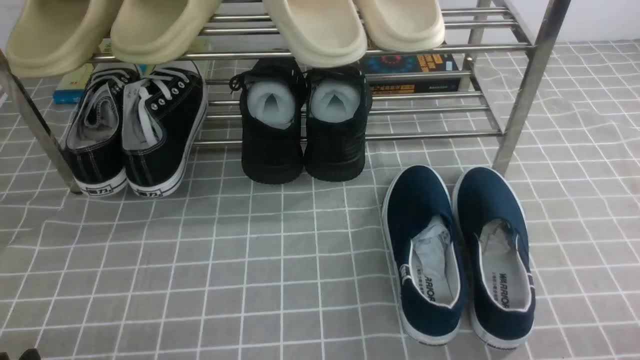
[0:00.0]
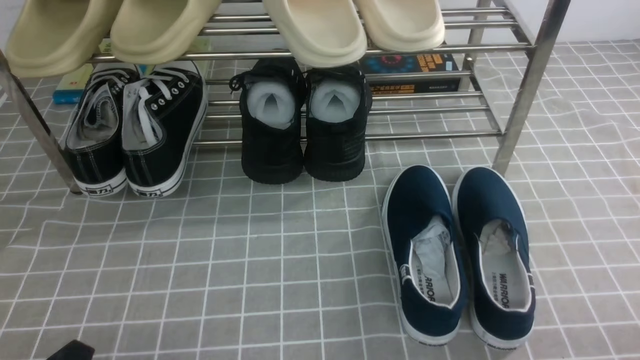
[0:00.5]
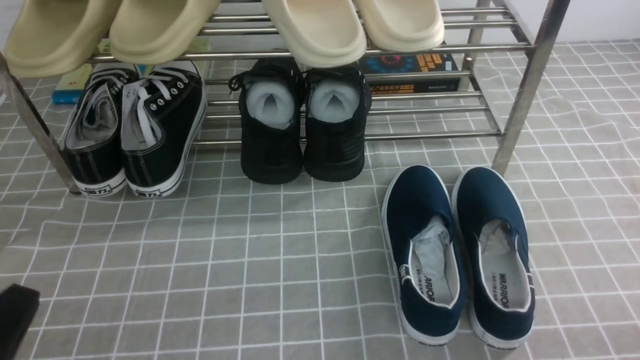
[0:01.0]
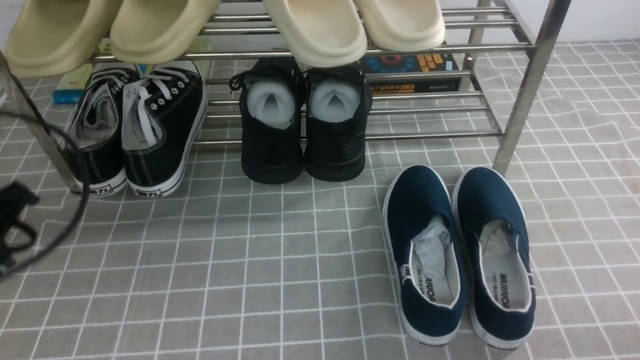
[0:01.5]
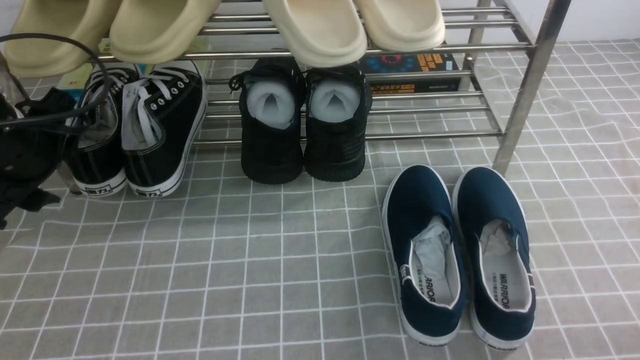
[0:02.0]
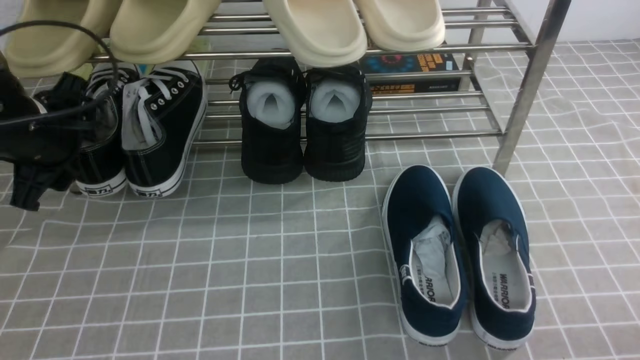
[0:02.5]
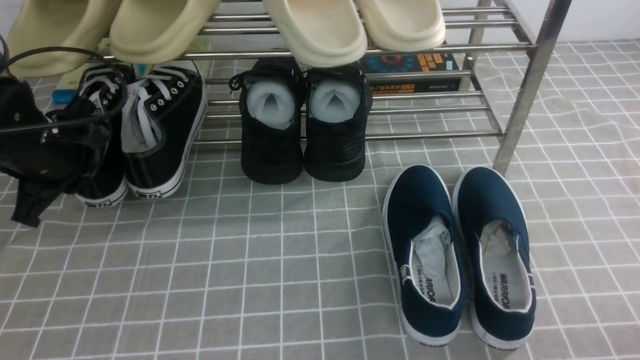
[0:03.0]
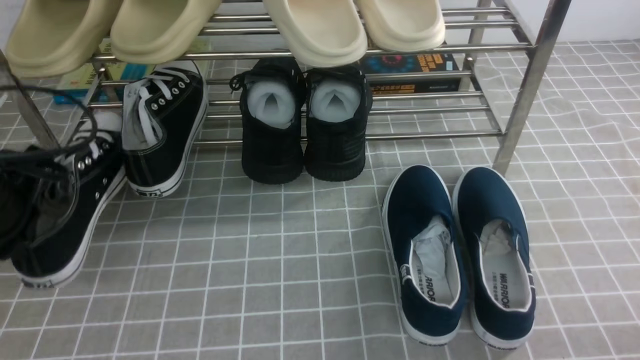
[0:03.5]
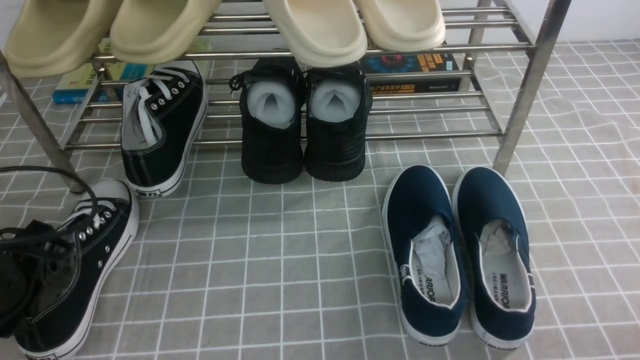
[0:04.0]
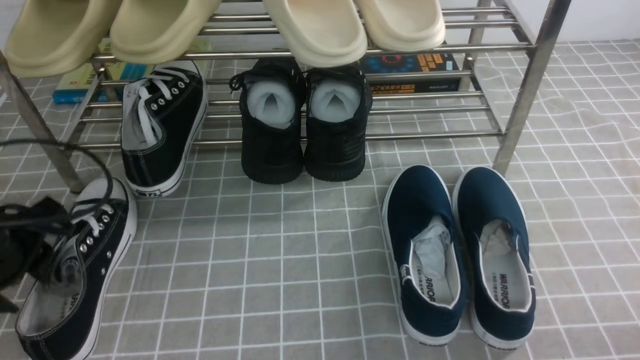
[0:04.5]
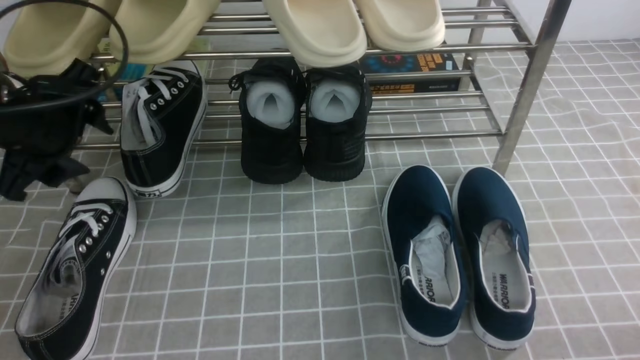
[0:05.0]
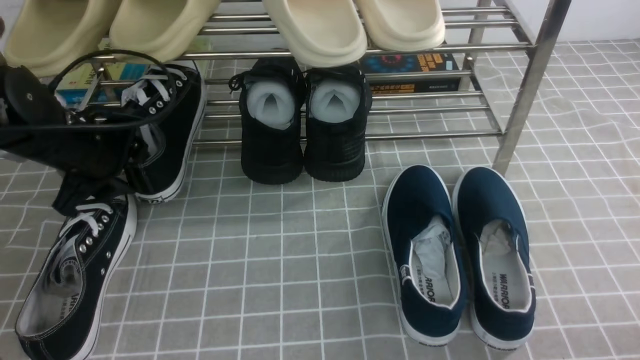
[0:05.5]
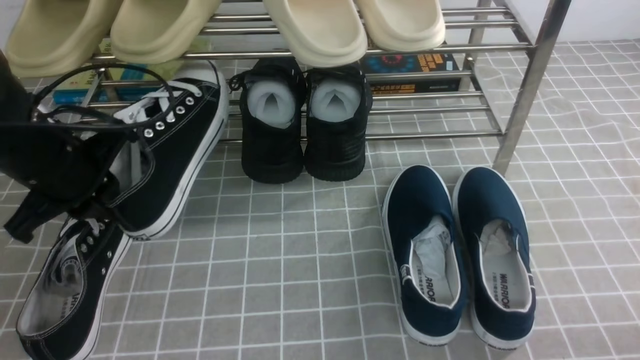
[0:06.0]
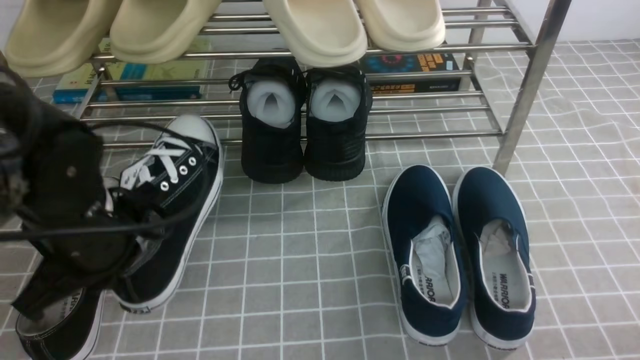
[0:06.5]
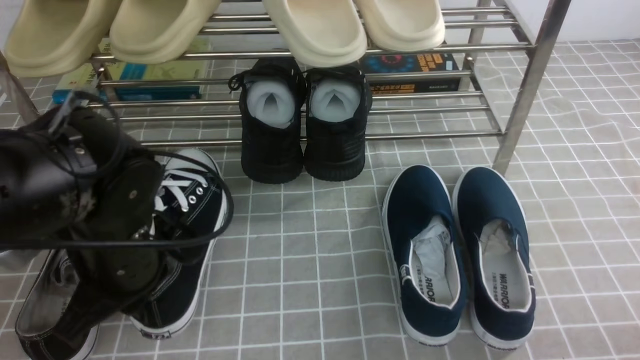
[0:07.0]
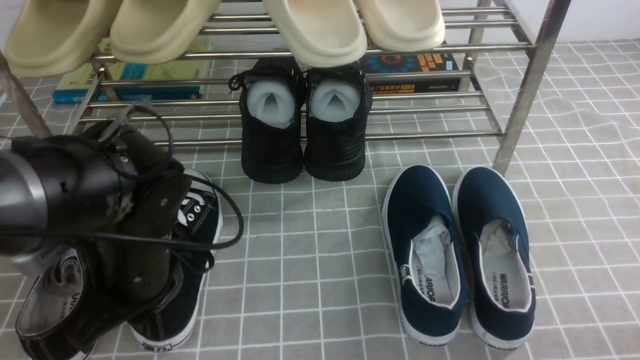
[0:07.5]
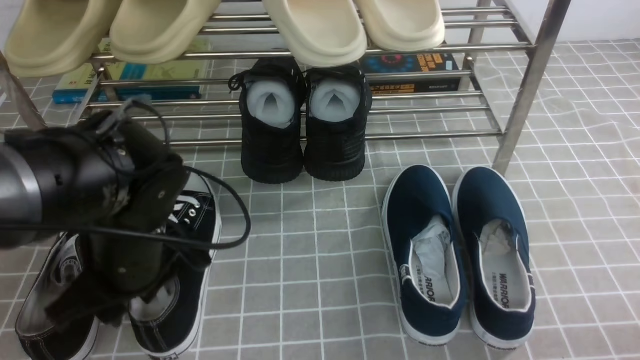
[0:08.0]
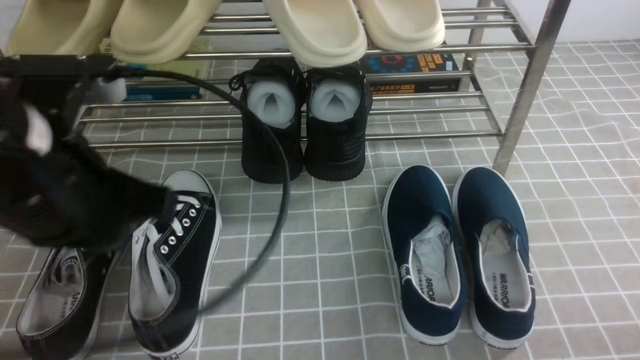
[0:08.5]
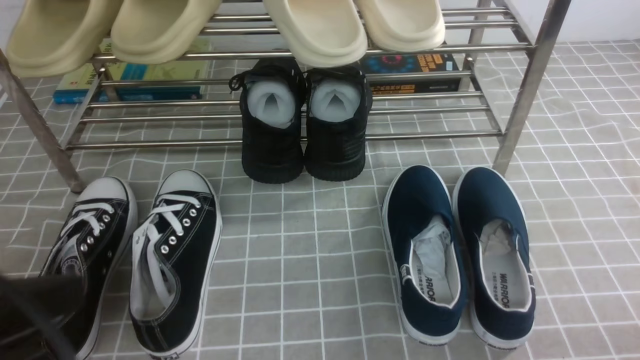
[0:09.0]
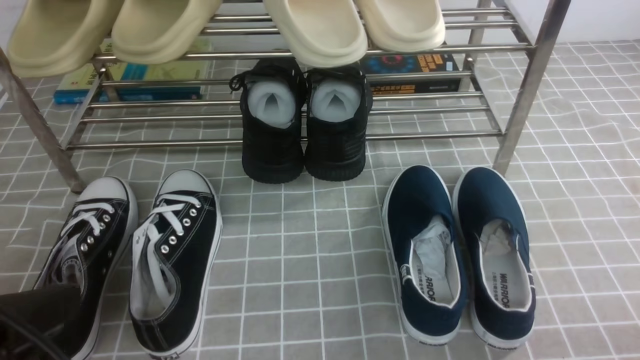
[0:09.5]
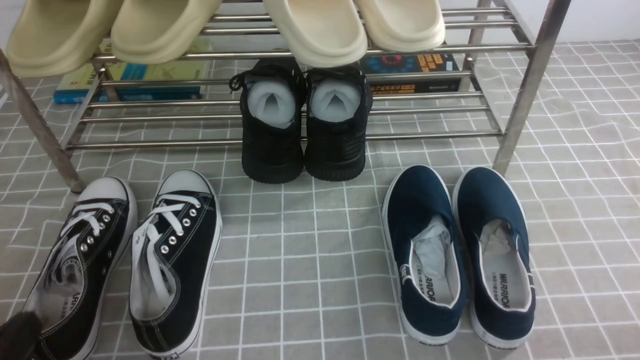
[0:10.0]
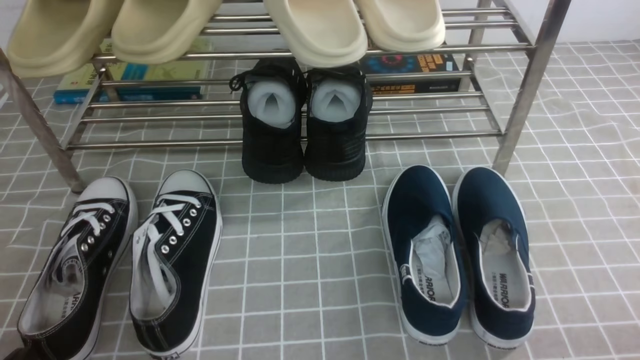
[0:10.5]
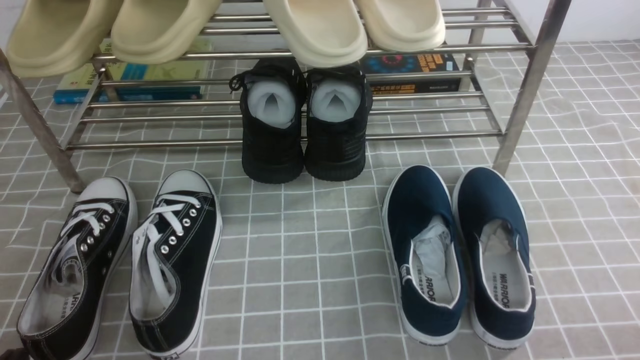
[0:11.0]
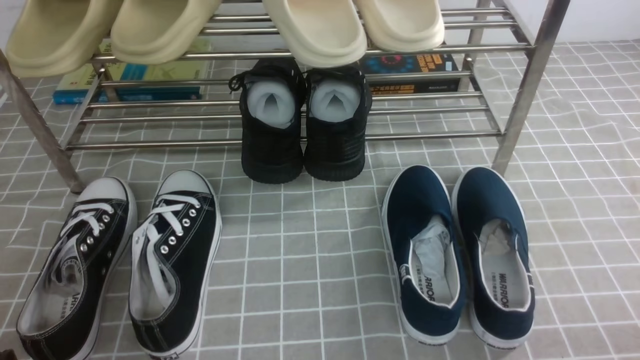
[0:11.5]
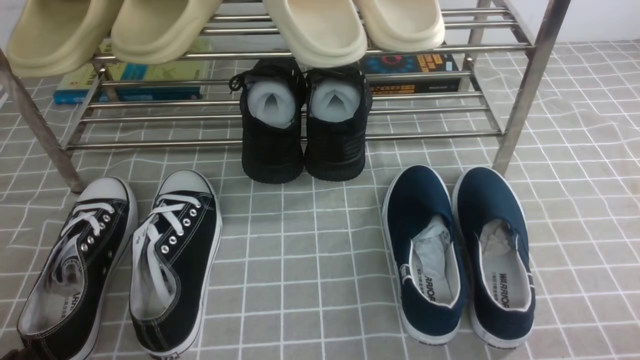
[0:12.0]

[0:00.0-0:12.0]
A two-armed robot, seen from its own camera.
Step, 0:00.0 to 0:03.0: use the left arm to clamp a shoe on the left side of the shoe rack.
Step, 0:03.5 to 0:04.5: Use your left arm to remove the clamped shoe from the shoe rack and put it down.
Step, 0:05.0 to 0:05.5: use the left arm to clamp a shoe on the left side of the shoe rack.
Step, 0:06.0 to 0:08.0: Use your left arm to remove the clamped shoe from the shoe rack and put it down.
0:02.0 to 0:04.0: The left gripper heads backward and downward, covering about 10 cm, and closes up.
0:04.0 to 0:06.0: The left gripper is displaced forward by about 10 cm, and opens and closes again.
0:06.0 to 0:08.0: The left gripper goes some 10 cm to the right and backward, and opens.
0:08.0 to 0:10.0: The left gripper moves backward and to the left, approximately 20 cm, and closes up.
0:10.0 to 0:12.0: The left gripper moves downward, roughly 5 cm.

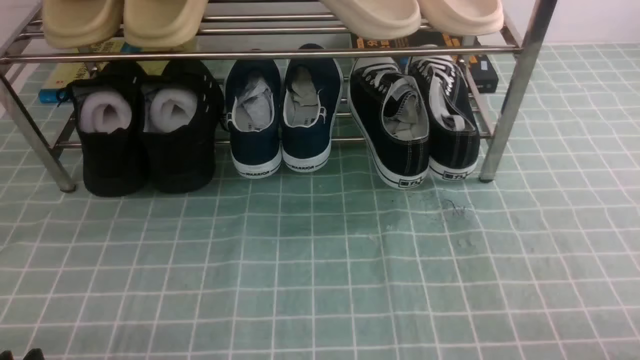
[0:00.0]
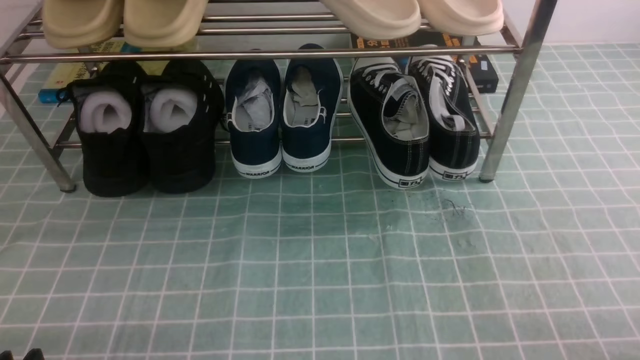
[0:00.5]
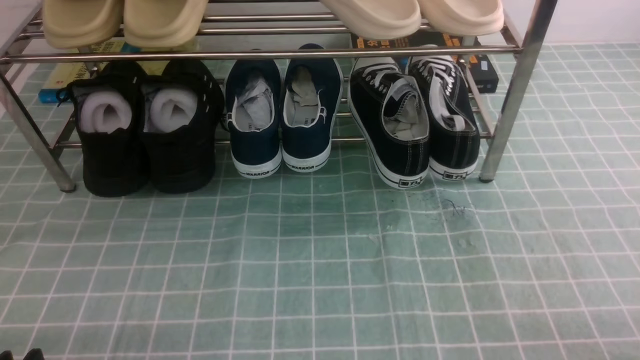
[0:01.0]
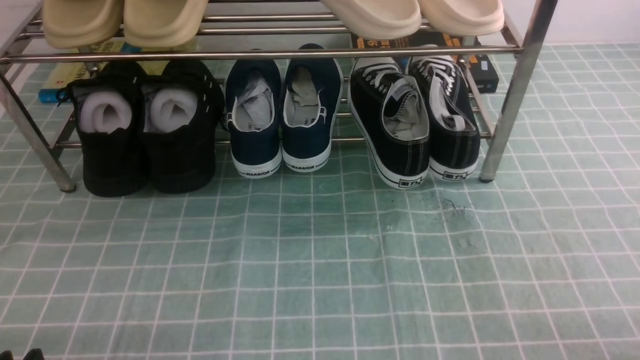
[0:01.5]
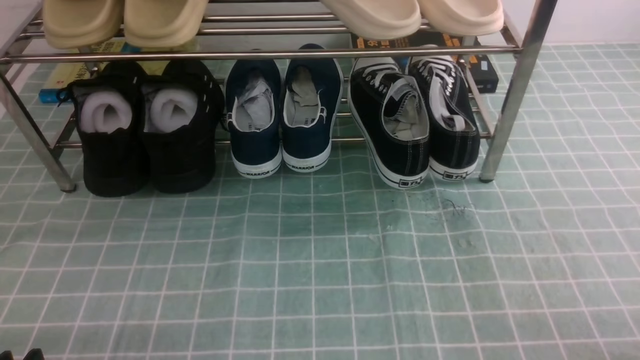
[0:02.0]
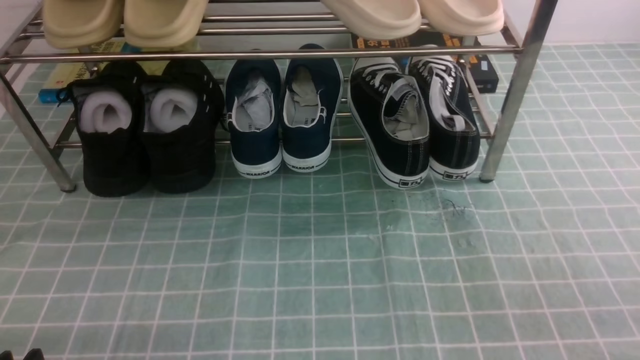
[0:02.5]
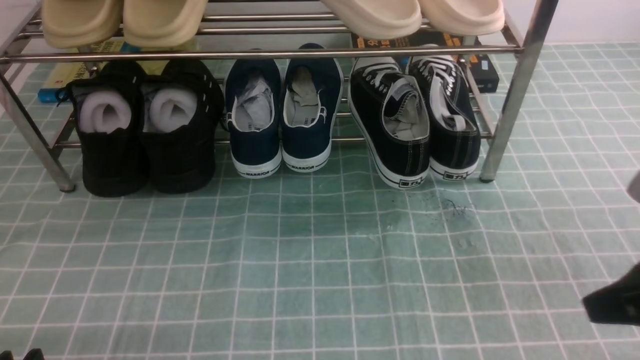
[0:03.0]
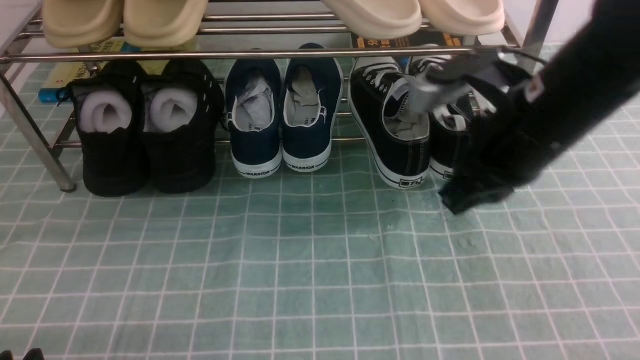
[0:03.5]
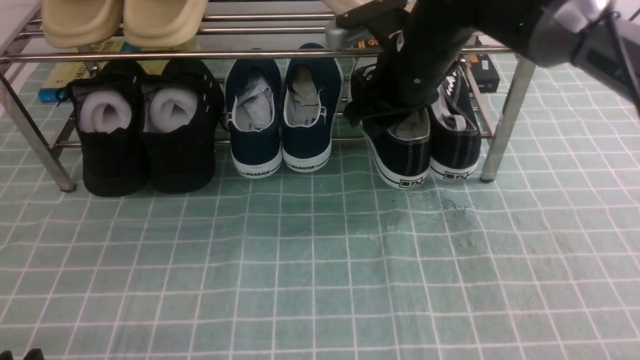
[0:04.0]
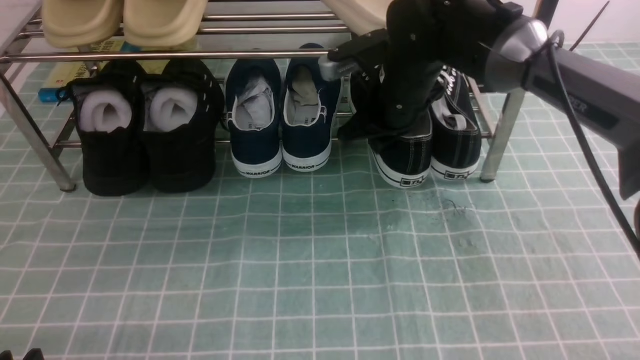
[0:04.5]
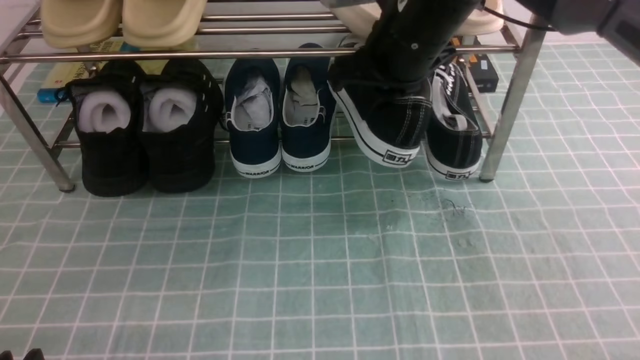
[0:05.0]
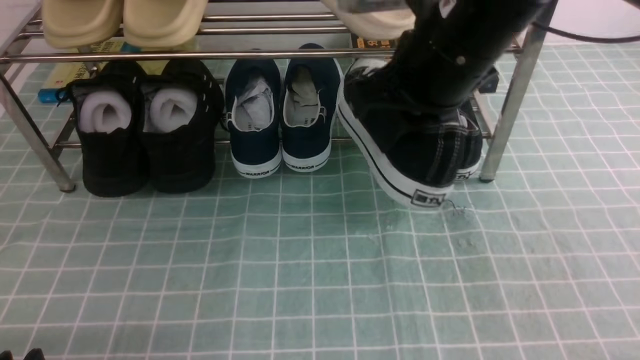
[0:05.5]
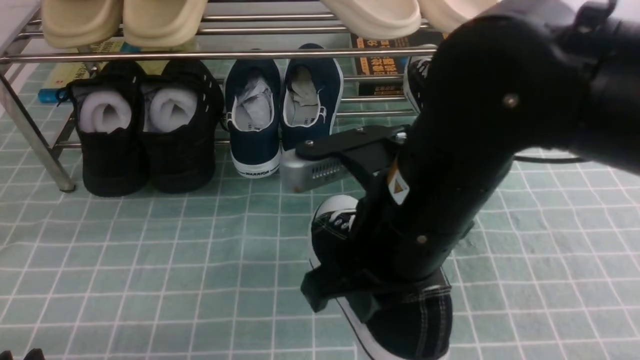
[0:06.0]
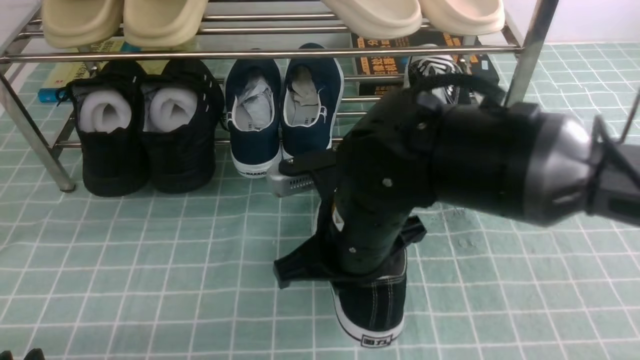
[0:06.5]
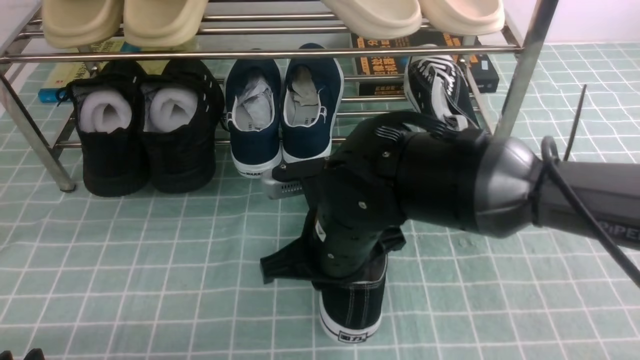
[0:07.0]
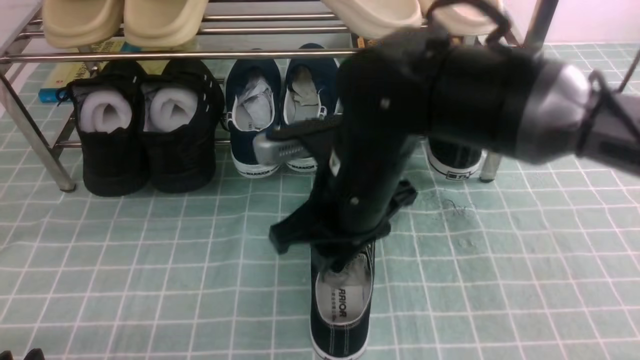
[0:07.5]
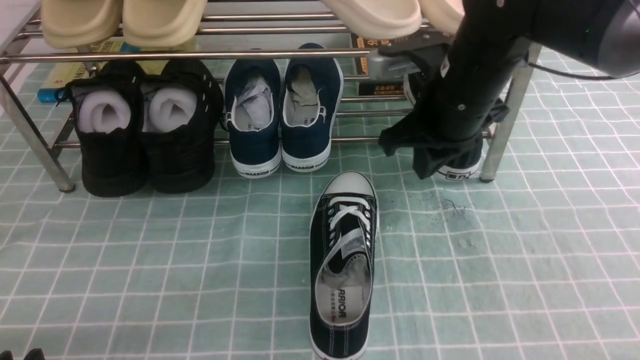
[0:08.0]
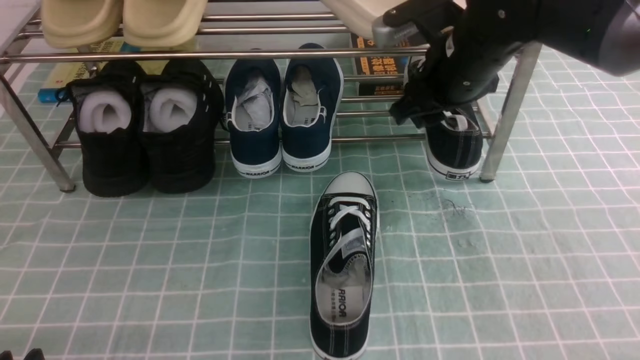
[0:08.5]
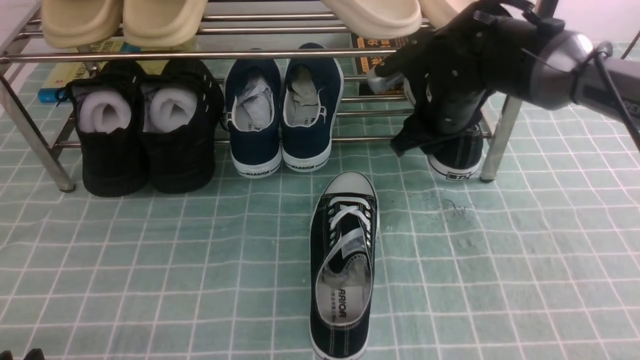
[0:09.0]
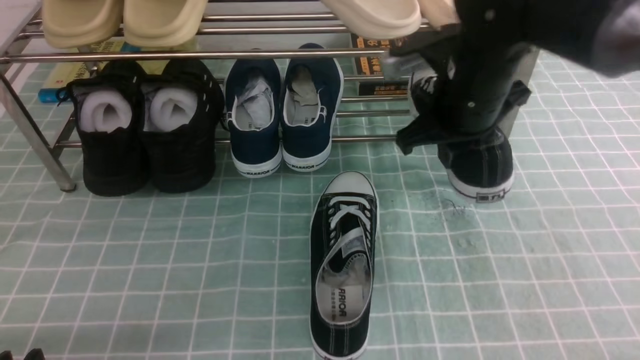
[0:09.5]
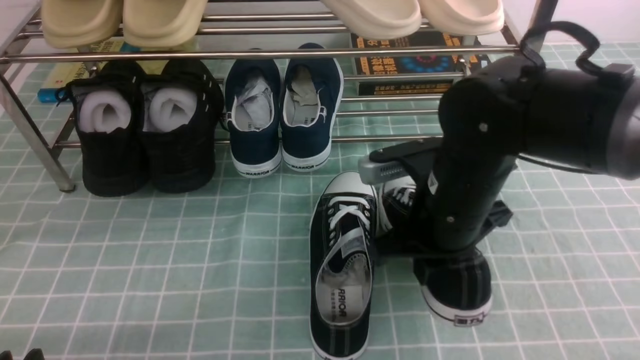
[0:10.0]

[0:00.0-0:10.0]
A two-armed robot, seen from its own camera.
Step, 0:00.0 to 0:04.5: use the right arm to clamp a shoe on the right side of the shoe rack.
Step, 0:05.0 to 0:07.0: use the right arm to take out the clamped shoe from the shoe rack and put it down.
Step, 0:07.5 to 0:08.5: use the right arm to clamp a shoe on the right side of the shoe rack.
0:02.0 to 0:04.0: The right gripper shifts about 40 cm forward and to the left, and closes, then reopens.
0:04.0 to 0:06.0: The right gripper moves backward, about 20 cm, and closes.
0:06.0 to 0:08.0: The right gripper shifts roughly 15 cm forward, and opens and closes again.
0:08.0 to 0:10.0: The right gripper moves backward, some 5 cm, and opens, then closes again.
